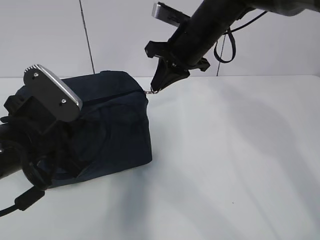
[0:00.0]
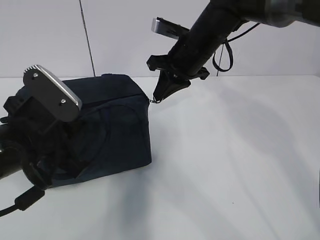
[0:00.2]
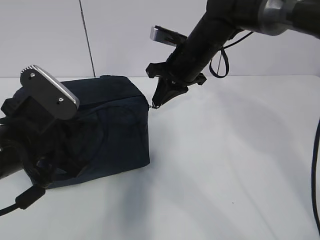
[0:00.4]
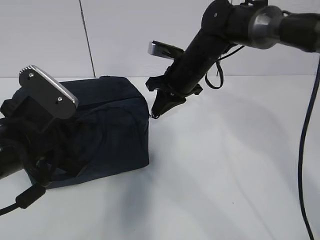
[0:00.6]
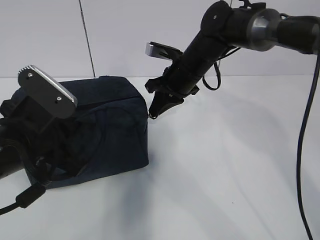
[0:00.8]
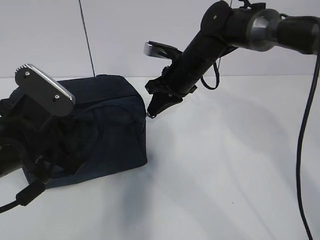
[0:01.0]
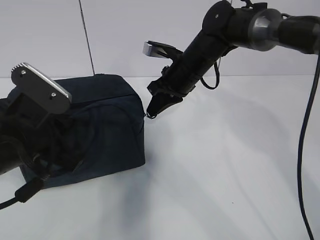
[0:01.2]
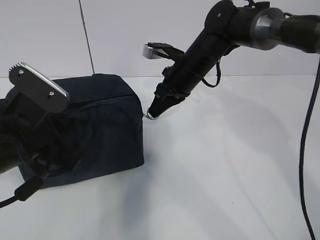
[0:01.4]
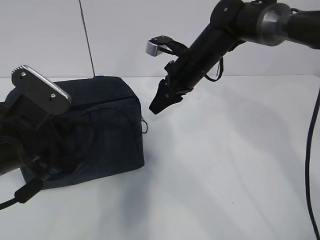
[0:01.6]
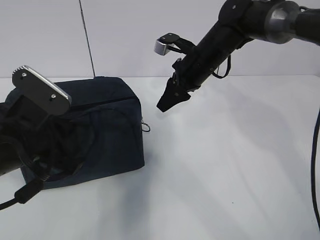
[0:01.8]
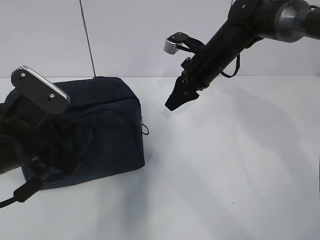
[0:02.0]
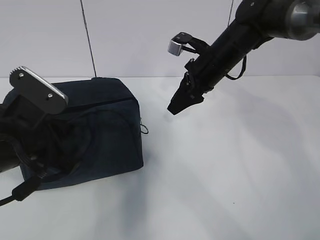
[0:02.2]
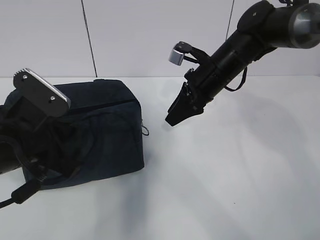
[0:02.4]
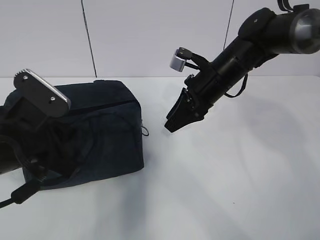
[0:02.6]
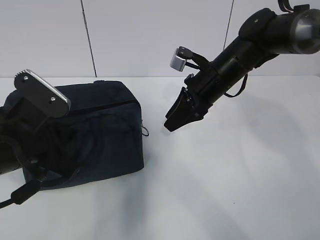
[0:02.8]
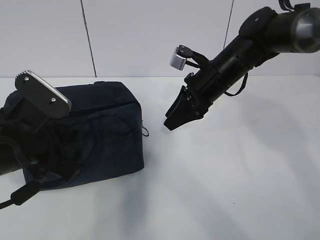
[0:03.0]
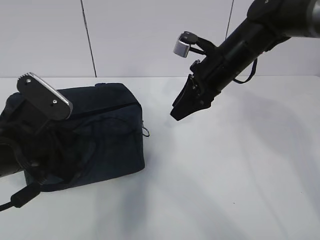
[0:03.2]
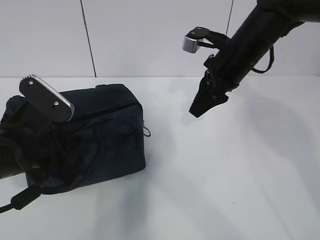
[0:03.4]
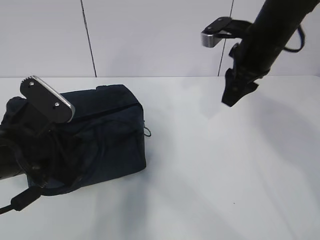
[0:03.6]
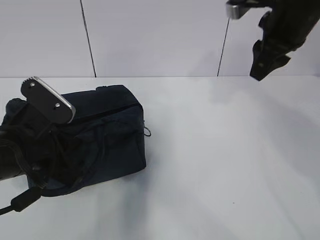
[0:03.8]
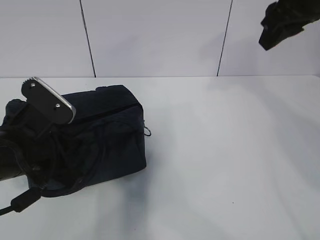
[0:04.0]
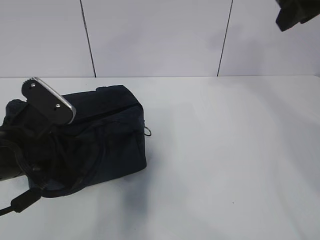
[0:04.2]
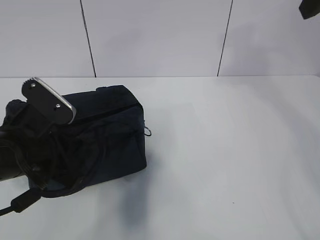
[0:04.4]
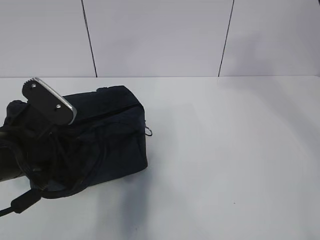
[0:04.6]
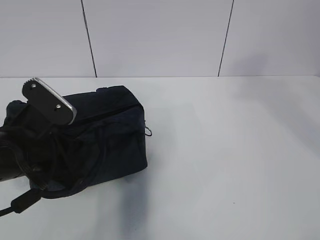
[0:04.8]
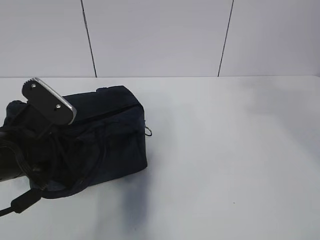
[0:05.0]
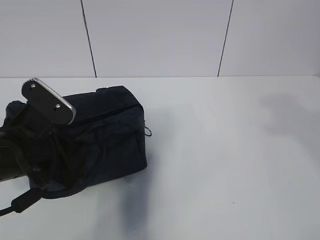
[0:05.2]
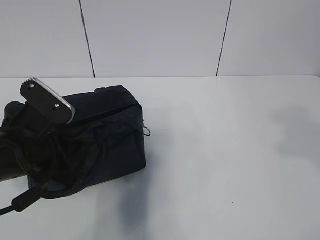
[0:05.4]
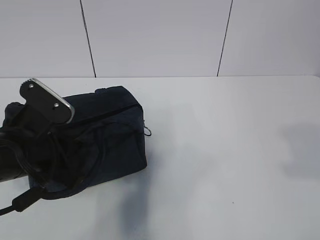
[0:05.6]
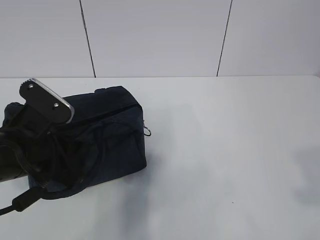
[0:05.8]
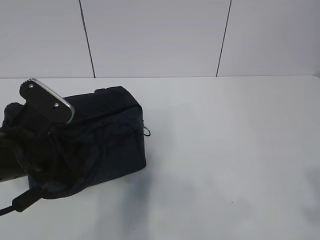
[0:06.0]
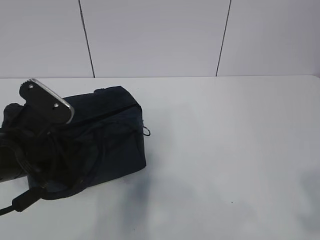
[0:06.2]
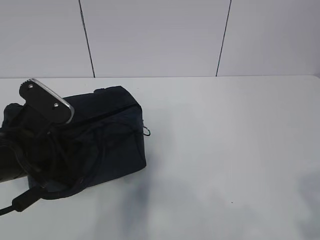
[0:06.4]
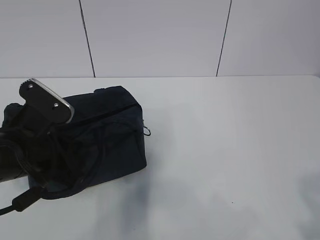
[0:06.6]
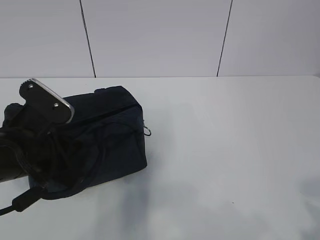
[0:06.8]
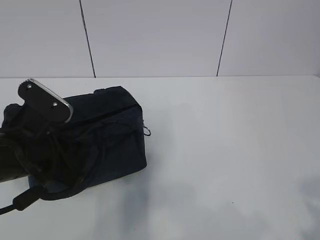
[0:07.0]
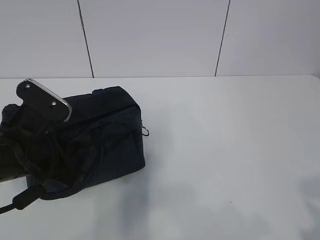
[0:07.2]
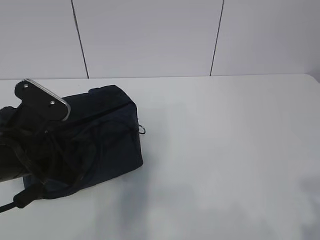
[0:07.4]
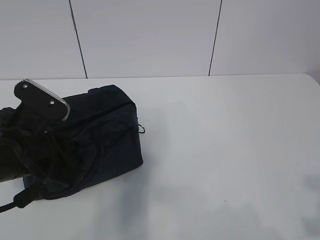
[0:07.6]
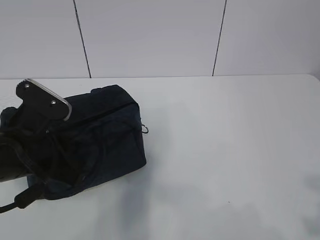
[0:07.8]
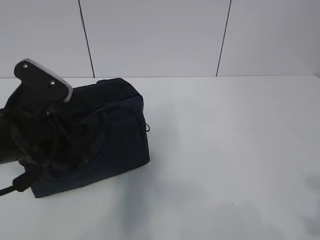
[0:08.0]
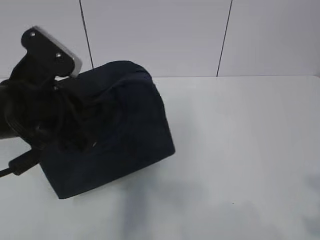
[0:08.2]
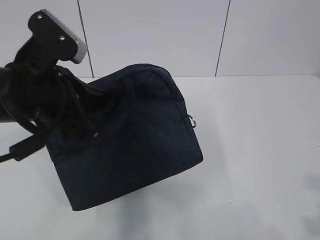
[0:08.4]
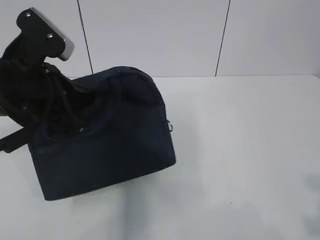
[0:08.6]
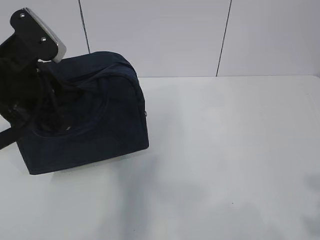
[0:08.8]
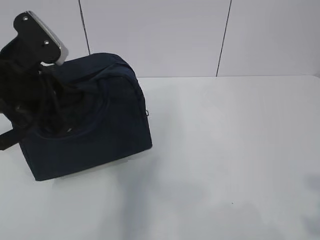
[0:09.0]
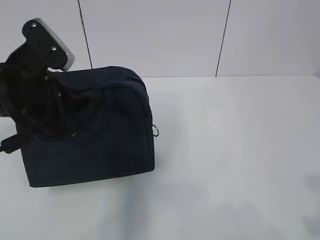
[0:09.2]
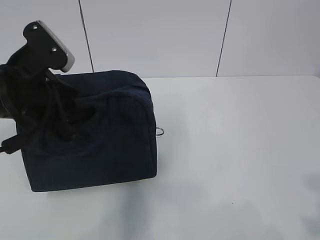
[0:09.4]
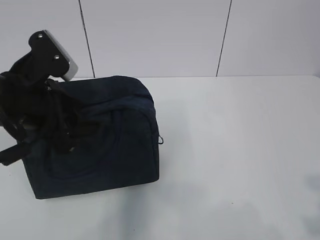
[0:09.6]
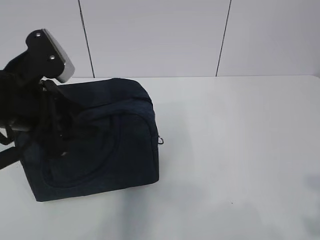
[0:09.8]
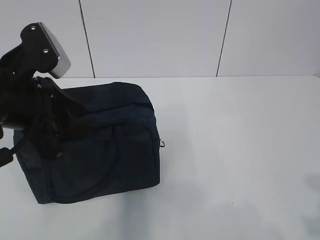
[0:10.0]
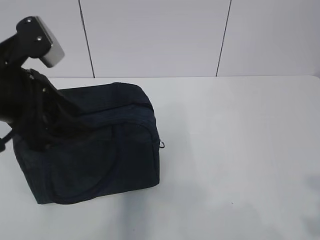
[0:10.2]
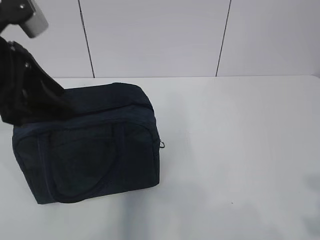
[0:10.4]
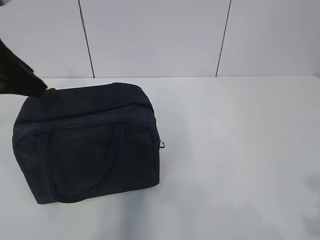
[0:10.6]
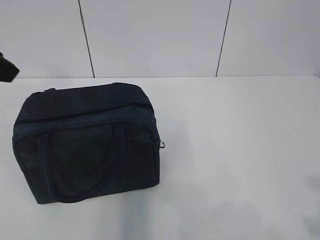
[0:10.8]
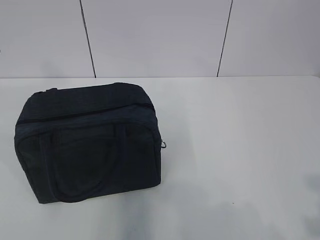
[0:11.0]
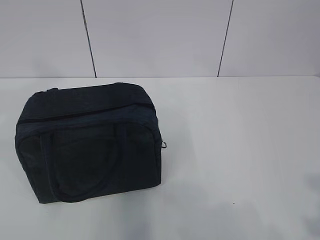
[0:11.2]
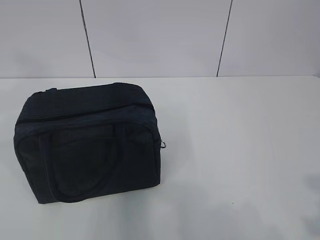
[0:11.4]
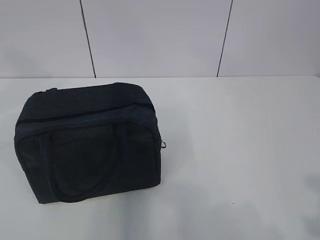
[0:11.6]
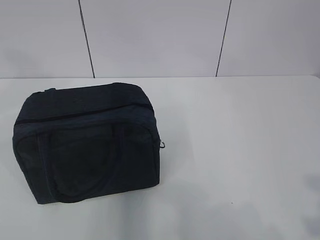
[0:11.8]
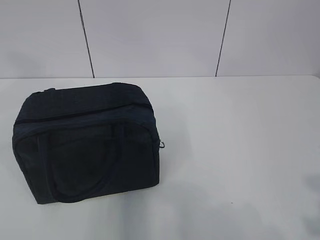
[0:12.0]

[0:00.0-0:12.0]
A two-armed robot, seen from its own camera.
0:00.0 to 0:01.6: The right gripper heads downward, covering about 5 cm, and opens up.
0:01.6 to 0:03.0: The grippers make only small movements.
0:03.0 to 0:04.4: The right gripper shifts approximately 25 cm upward, backward and to the right.
0:04.4 to 0:06.0: The right gripper is displaced backward by about 30 cm.
0:06.0 to 0:07.6: The grippers stay close to where they were, moving slightly.
0:07.6 to 0:09.0: The left gripper travels upward by about 5 cm.
0:09.0 to 0:10.4: The left gripper heads upward, covering roughly 5 cm, and opens.
0:10.4 to 0:12.0: The left gripper goes about 15 cm upward, backward and to the left.

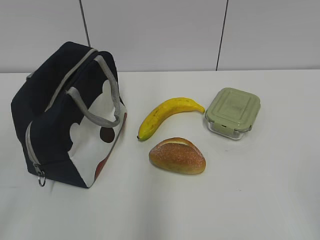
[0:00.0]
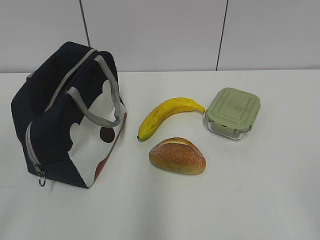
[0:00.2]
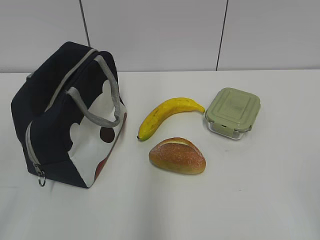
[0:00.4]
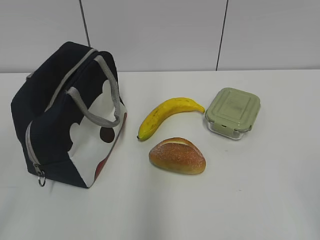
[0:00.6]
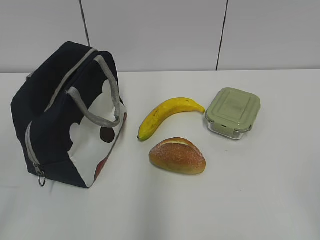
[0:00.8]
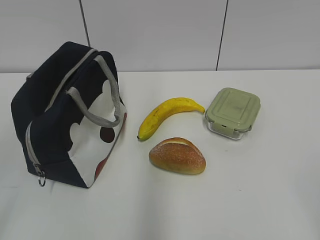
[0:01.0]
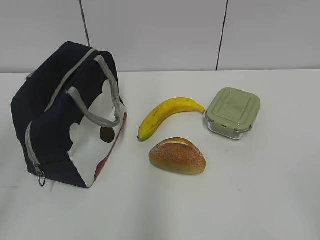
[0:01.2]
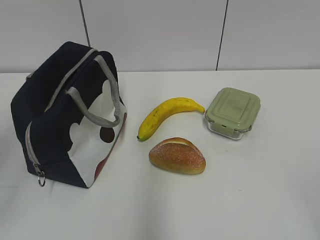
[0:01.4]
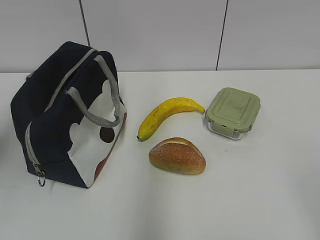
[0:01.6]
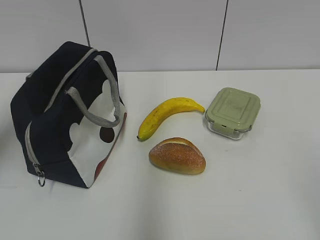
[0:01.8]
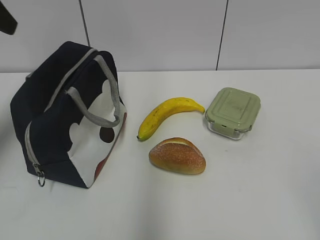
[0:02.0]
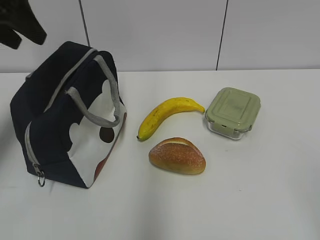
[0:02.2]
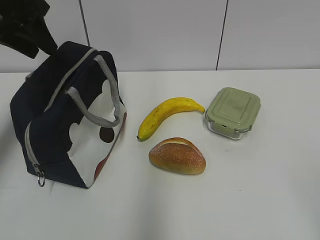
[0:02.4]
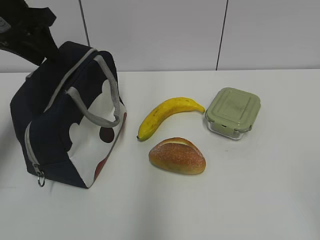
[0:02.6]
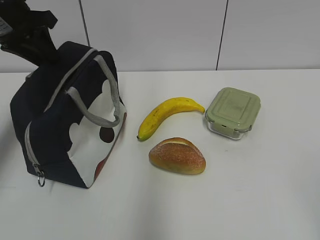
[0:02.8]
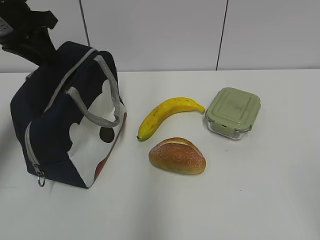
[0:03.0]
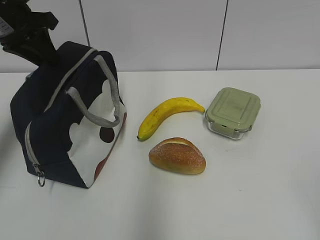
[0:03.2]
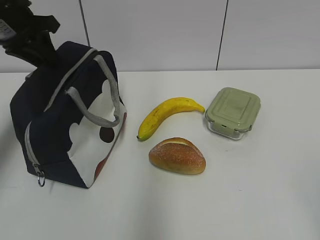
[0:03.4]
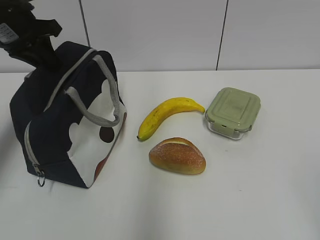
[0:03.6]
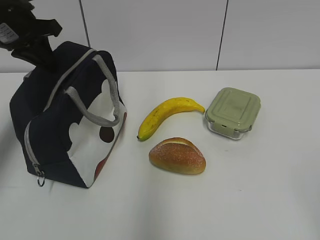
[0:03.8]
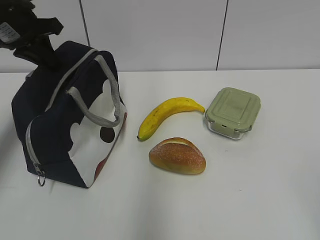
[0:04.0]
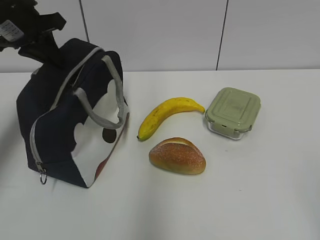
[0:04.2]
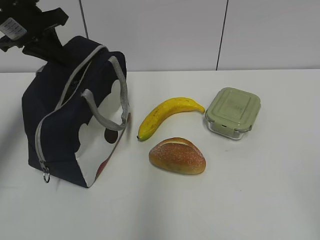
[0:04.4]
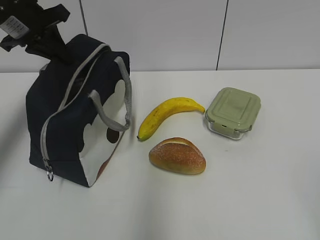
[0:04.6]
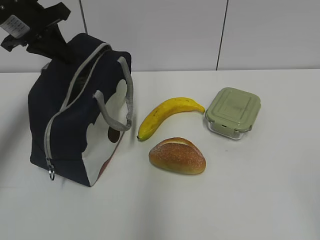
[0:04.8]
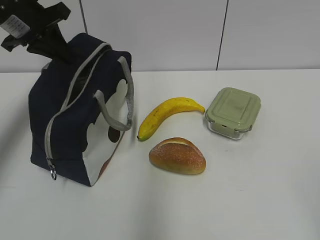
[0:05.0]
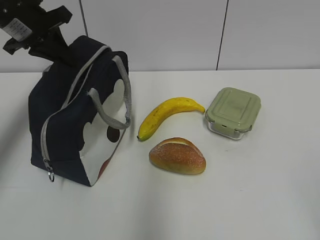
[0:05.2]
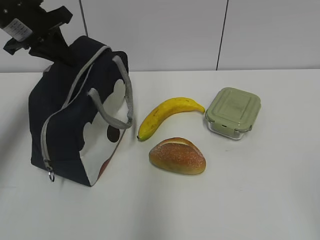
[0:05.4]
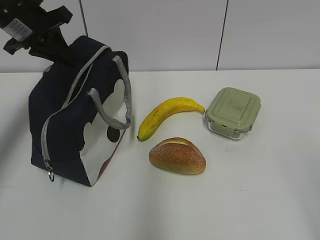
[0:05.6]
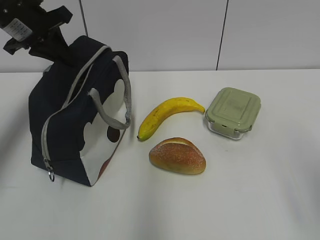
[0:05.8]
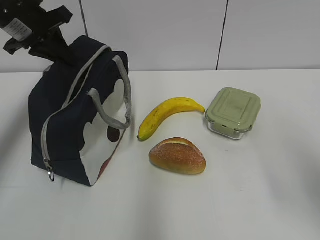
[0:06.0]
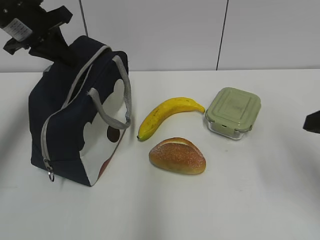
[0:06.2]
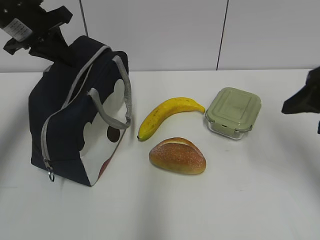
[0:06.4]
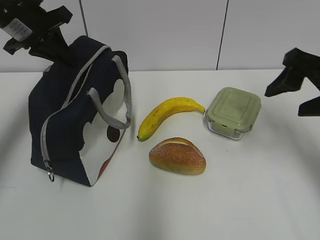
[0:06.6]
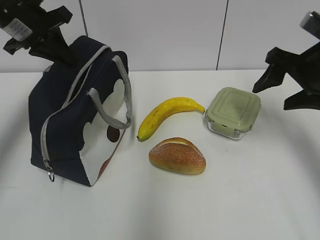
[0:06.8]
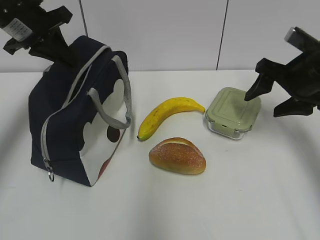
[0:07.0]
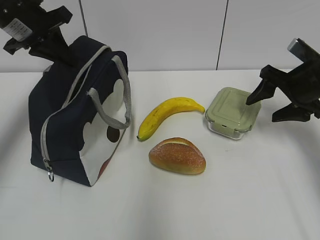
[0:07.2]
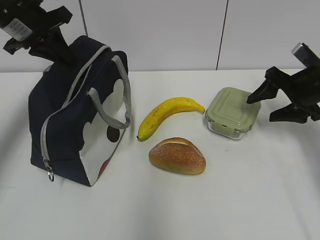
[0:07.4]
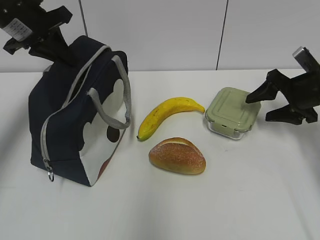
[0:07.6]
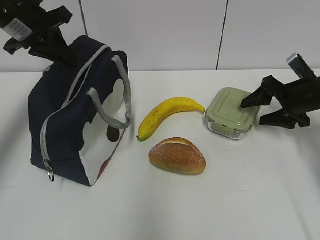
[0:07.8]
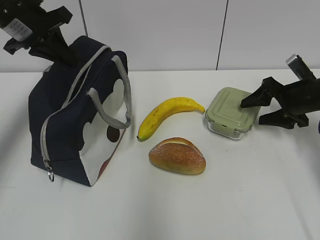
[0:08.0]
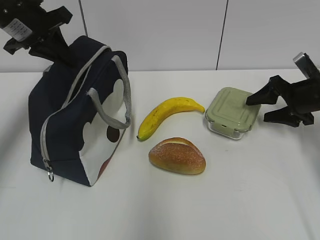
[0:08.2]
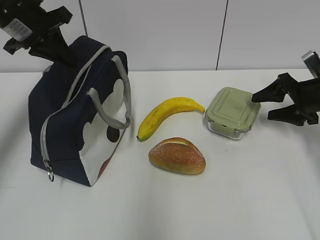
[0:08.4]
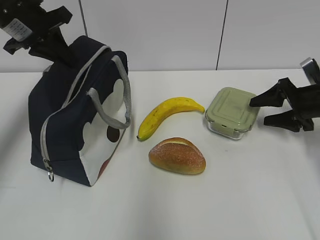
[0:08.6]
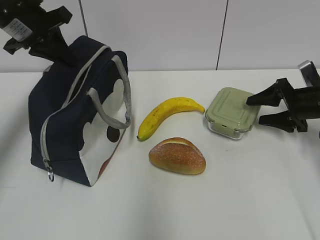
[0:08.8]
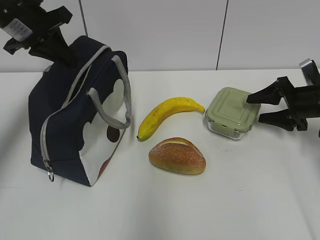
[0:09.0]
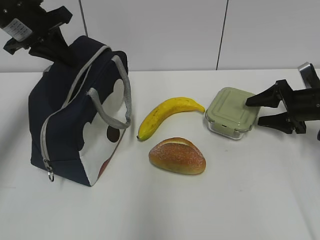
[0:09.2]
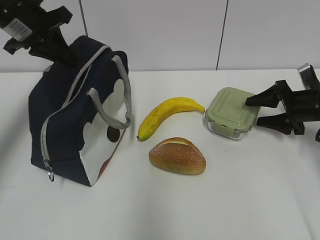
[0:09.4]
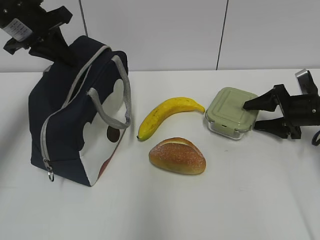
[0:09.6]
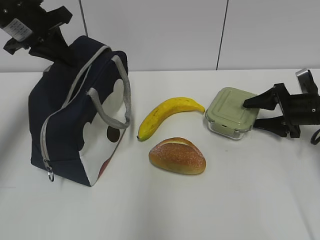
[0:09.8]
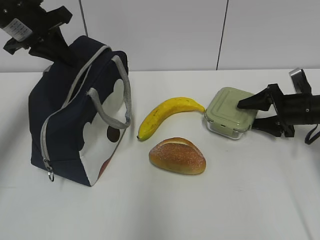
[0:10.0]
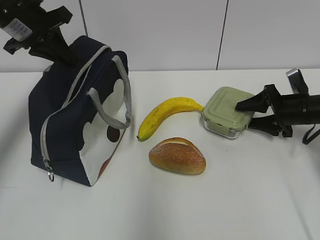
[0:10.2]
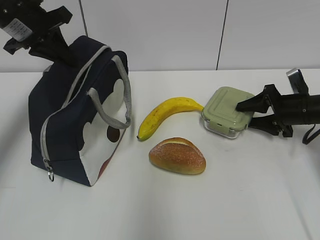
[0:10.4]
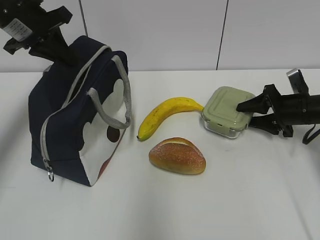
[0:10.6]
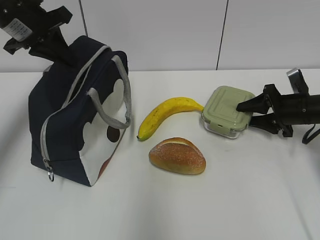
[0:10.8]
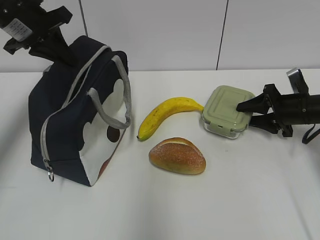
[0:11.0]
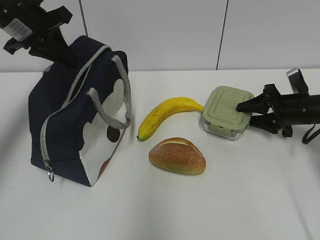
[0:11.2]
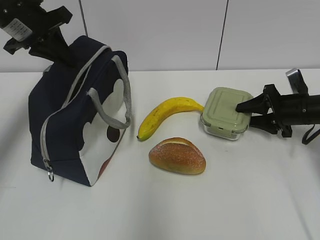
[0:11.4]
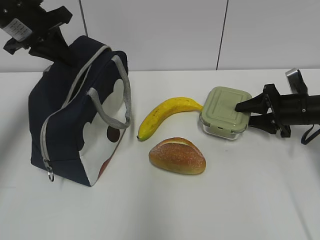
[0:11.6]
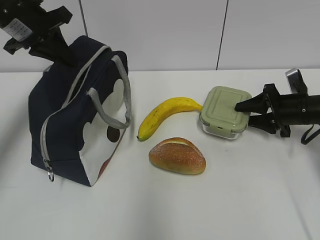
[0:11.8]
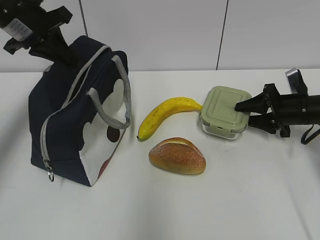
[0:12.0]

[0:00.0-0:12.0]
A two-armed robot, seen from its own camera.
Step, 0:00.0 to 0:10.8: Grab the lunch box with your right hand.
0:01.6 to 0:03.0: The left gripper is displaced forward by some 25 cm, and closes its fingers.
0:03.0 to 0:04.4: The left gripper closes its fingers.
0:04.4 to 0:06.0: The right gripper travels forward by some 15 cm.
0:06.0 to 0:07.6: The right gripper is displaced forward and downward by roughly 30 cm.
0:07.6 to 0:09.0: The grippers move only a little.
0:09.0 to 0:10.4: The grippers move only a little.
0:10.4 to 0:12.0: Both grippers stay about where they are.
